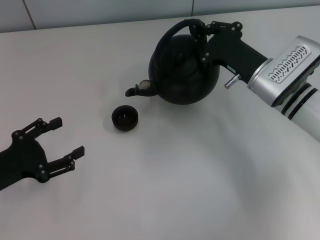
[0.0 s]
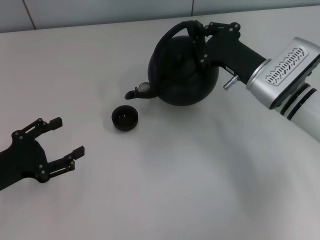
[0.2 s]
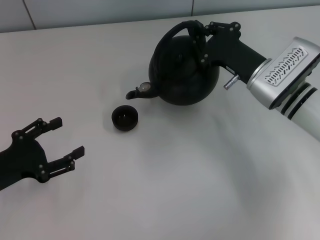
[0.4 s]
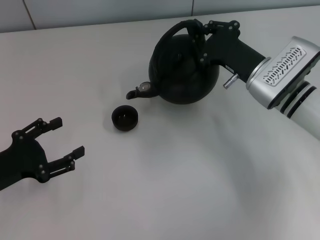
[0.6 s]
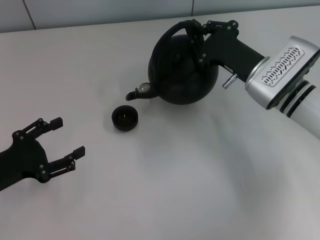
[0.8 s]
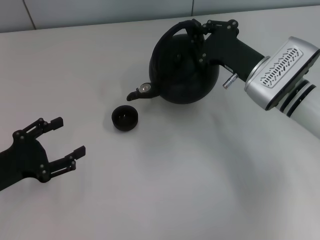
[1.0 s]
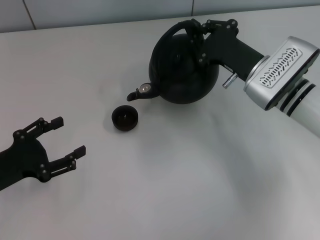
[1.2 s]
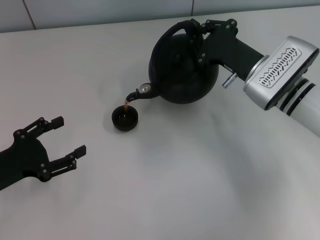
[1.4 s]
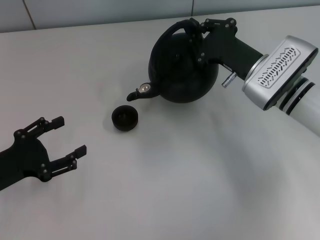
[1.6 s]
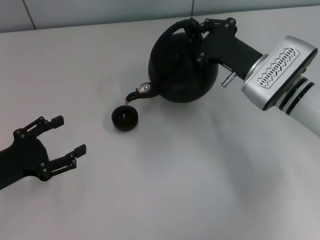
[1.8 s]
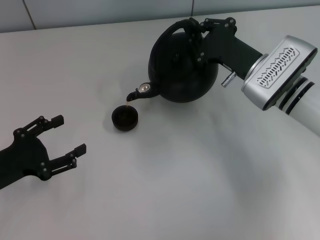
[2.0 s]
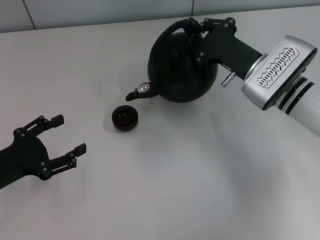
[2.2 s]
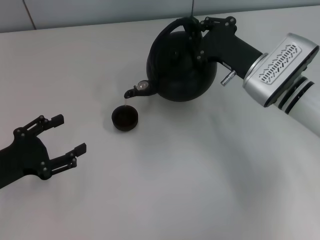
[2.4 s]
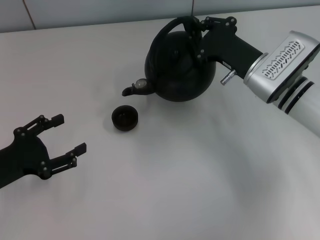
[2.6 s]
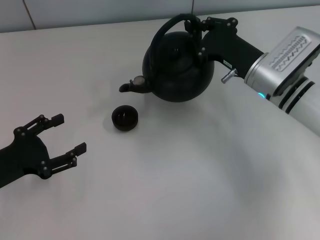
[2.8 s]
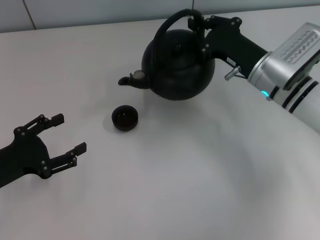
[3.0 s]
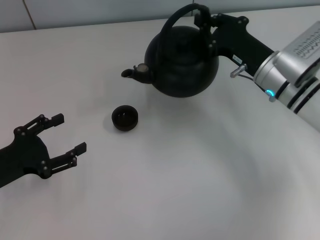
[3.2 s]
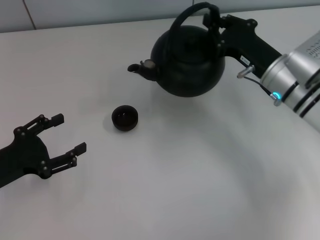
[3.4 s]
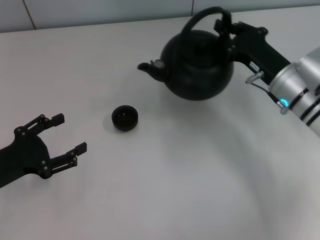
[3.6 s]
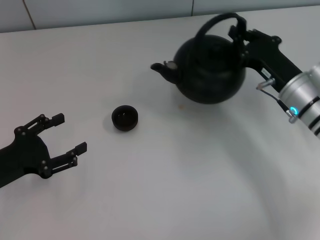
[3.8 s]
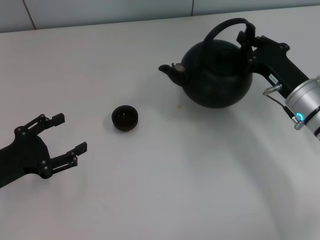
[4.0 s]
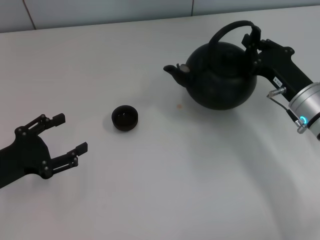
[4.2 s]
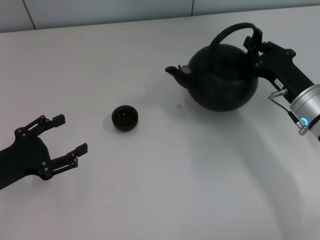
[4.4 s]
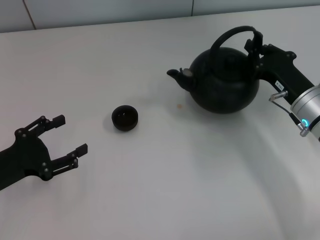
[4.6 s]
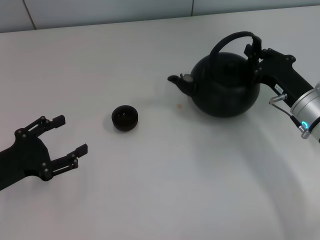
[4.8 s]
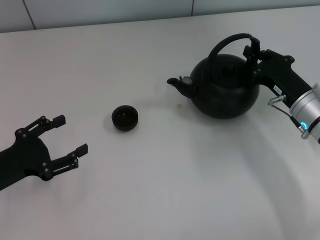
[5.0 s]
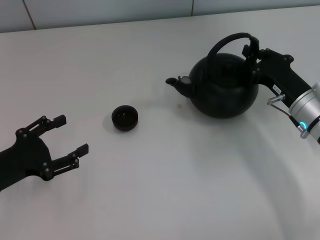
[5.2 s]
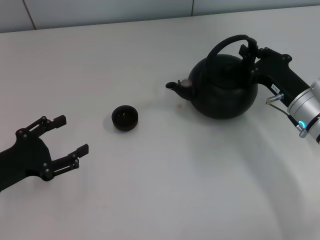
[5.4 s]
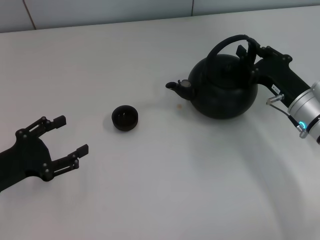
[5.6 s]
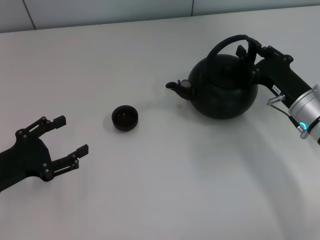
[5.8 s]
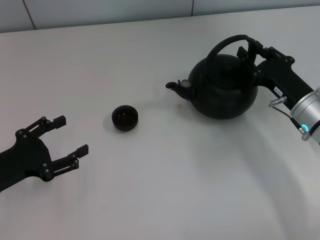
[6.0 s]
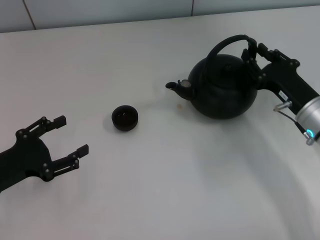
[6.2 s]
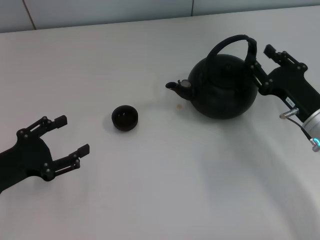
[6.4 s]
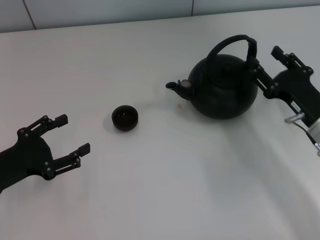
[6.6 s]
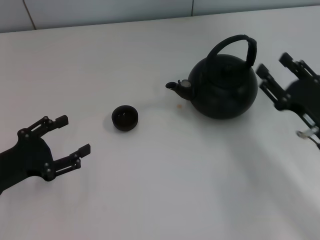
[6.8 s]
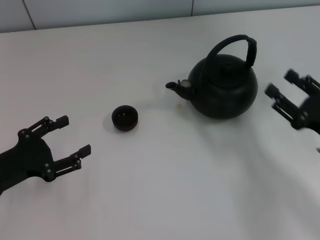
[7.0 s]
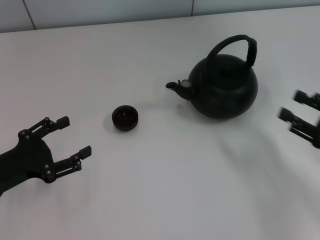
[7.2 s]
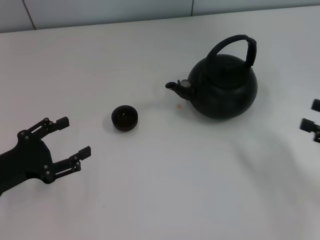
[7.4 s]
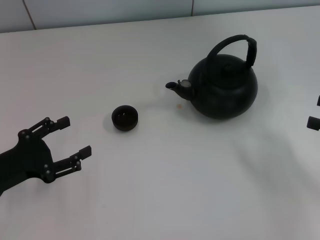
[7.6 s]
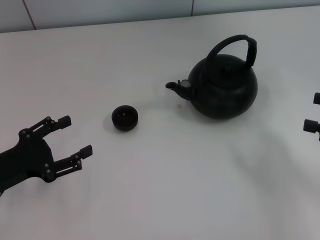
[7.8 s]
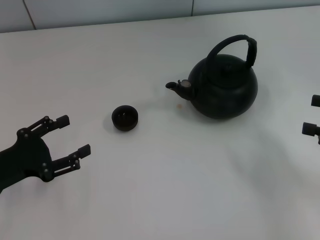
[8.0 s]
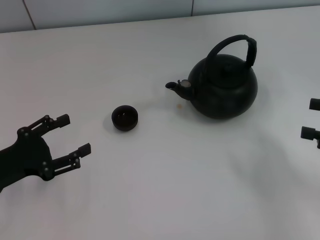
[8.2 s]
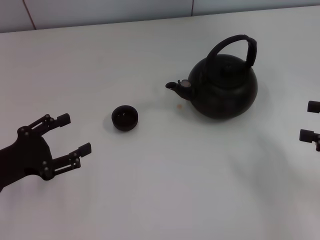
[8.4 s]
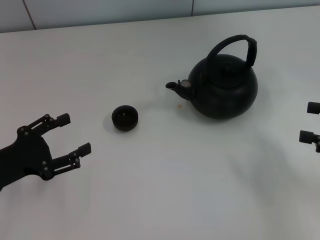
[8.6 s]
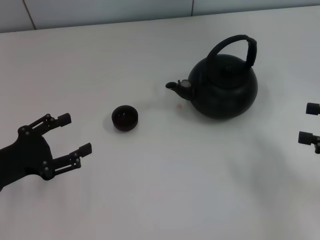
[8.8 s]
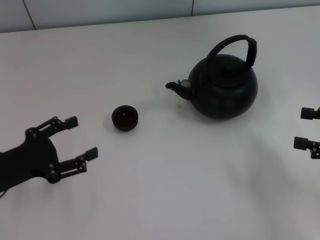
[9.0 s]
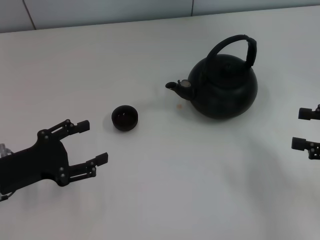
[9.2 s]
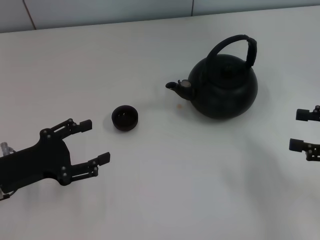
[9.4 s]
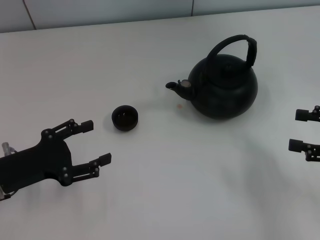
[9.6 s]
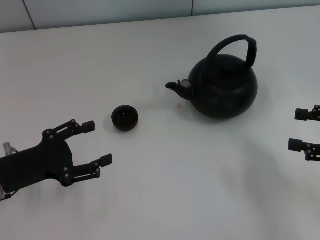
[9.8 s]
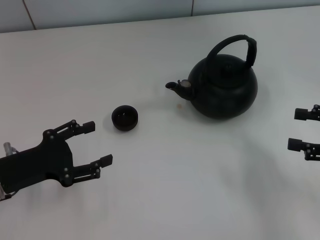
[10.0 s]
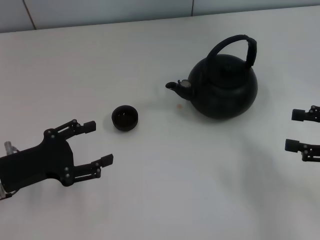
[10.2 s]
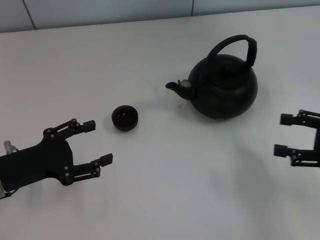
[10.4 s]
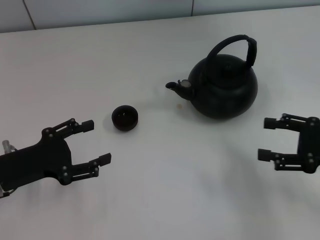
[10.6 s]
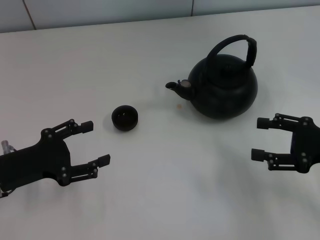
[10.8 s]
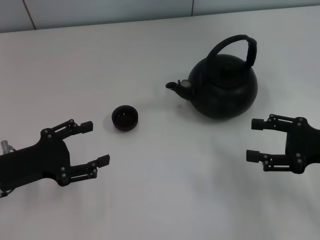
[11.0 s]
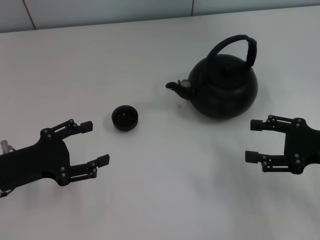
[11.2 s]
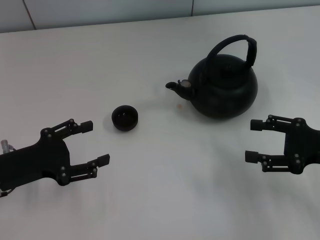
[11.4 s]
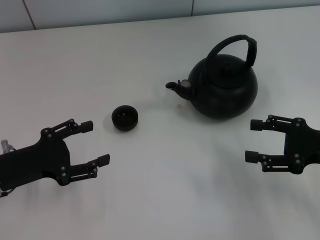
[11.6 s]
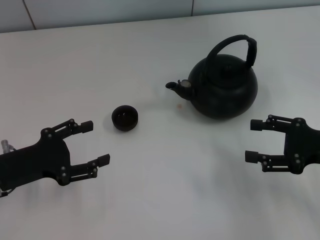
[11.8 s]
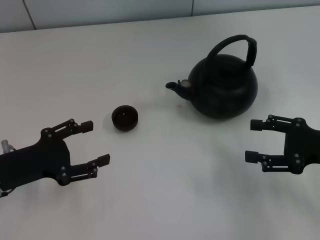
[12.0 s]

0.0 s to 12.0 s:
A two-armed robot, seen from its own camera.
Task of the whole recording: Grasp the handle of the teapot with one hand and pour tea into the teacup.
Step, 3.0 to 6.6 s: Put down the teapot with the right gripper.
0.0 to 3.0 s: The grippers stay close to where they were, moving slightly.
3.0 to 4.4 s: The right gripper goes some 5 cm to the right.
4.4 to 6.0 s: The grippers make only small movements.
6.0 to 7.6 s: The right gripper moves to the right, backward and upward, approximately 20 cm, and opens up.
7.6 to 10.4 s: There are only small adjustments of the grippers.
10.4 to 12.0 s: There are only small adjustments of the grippers.

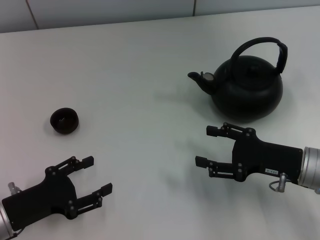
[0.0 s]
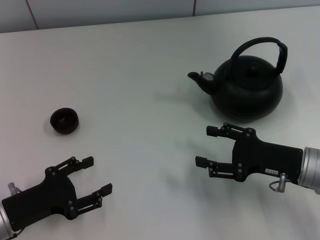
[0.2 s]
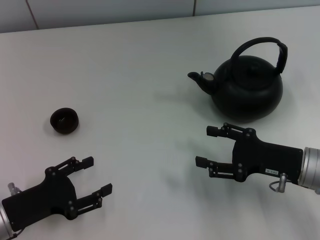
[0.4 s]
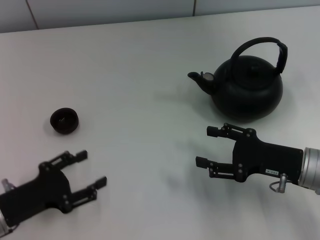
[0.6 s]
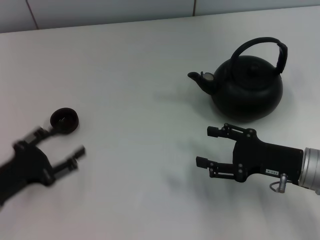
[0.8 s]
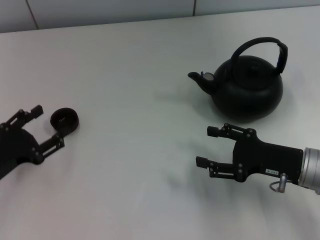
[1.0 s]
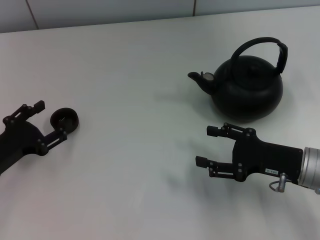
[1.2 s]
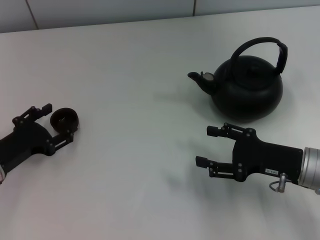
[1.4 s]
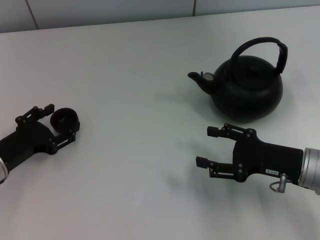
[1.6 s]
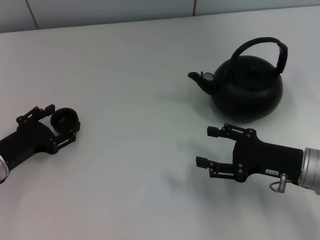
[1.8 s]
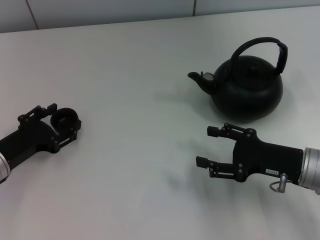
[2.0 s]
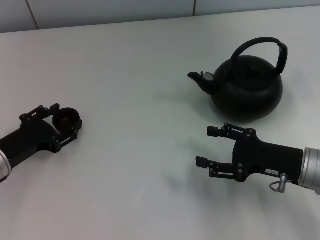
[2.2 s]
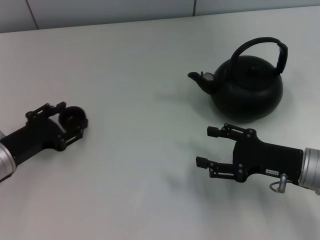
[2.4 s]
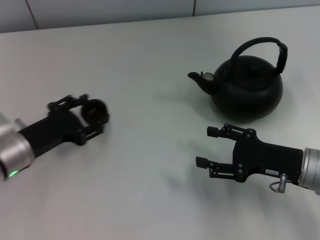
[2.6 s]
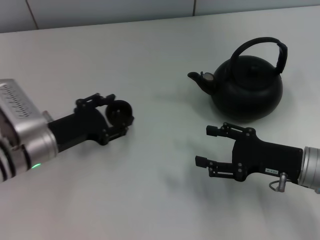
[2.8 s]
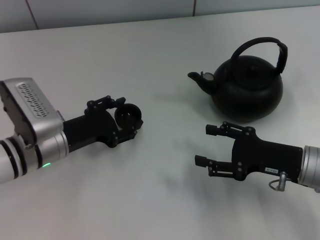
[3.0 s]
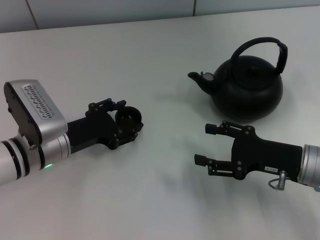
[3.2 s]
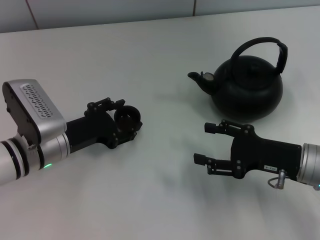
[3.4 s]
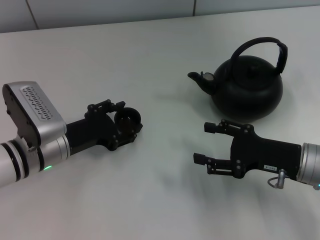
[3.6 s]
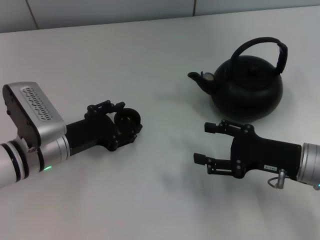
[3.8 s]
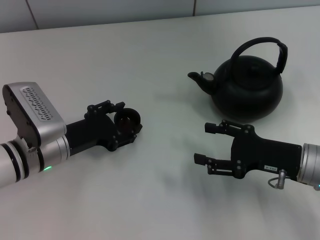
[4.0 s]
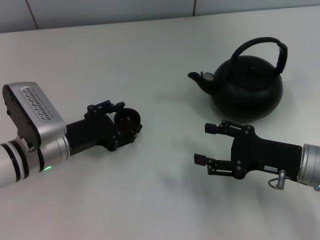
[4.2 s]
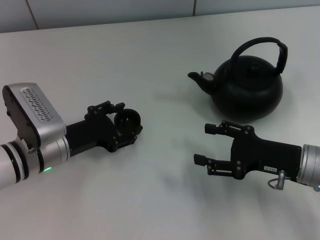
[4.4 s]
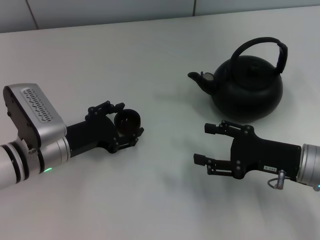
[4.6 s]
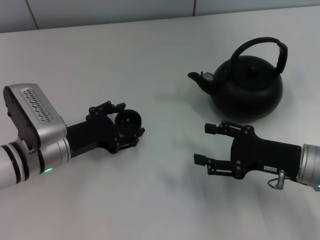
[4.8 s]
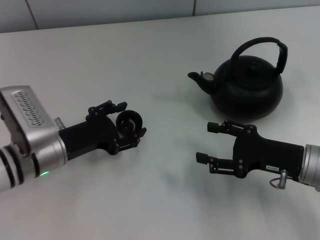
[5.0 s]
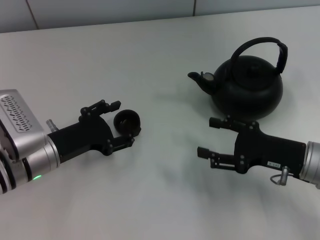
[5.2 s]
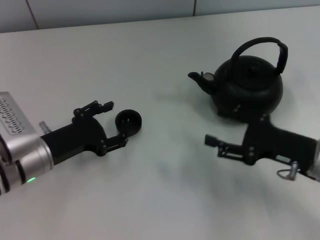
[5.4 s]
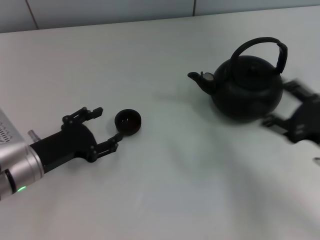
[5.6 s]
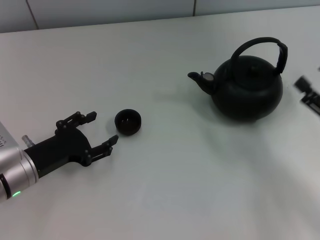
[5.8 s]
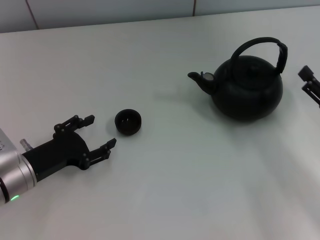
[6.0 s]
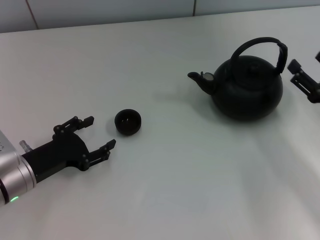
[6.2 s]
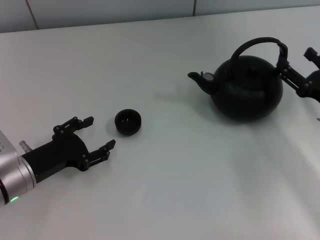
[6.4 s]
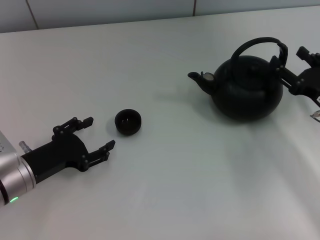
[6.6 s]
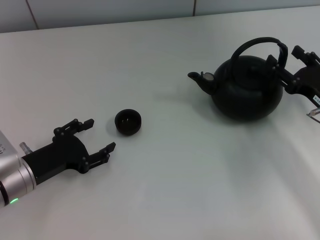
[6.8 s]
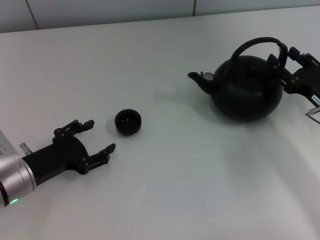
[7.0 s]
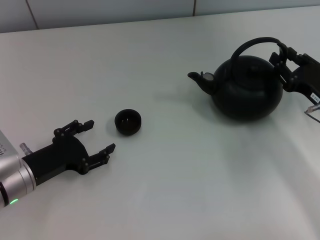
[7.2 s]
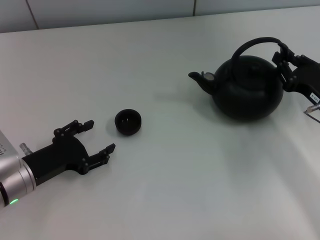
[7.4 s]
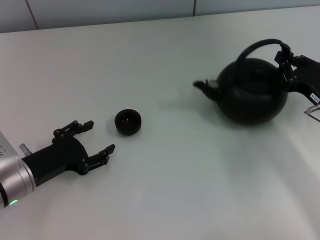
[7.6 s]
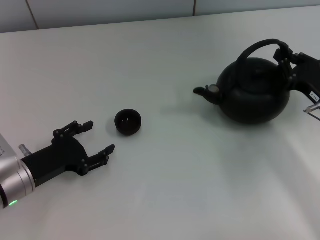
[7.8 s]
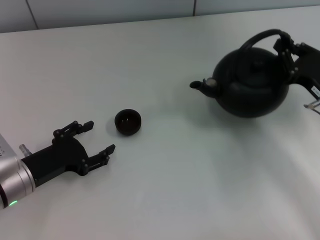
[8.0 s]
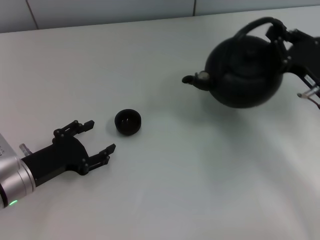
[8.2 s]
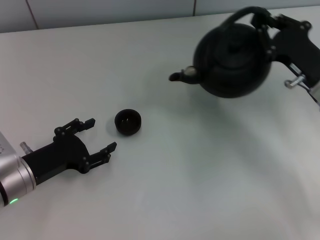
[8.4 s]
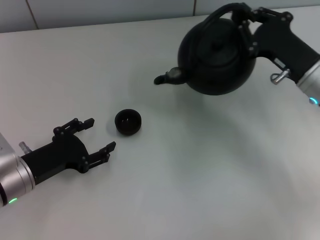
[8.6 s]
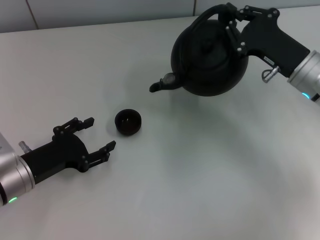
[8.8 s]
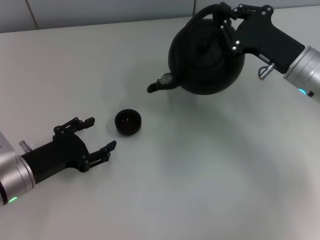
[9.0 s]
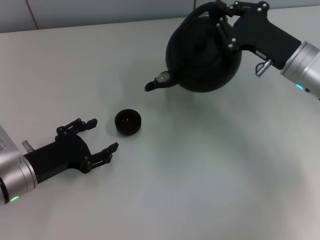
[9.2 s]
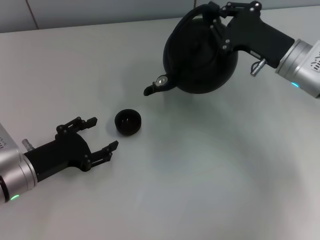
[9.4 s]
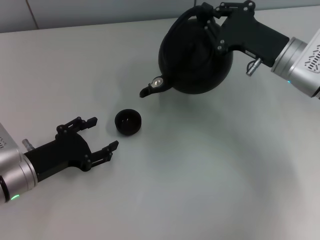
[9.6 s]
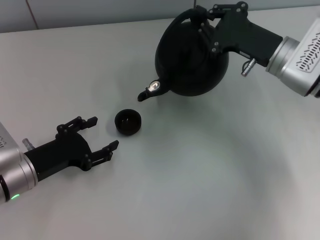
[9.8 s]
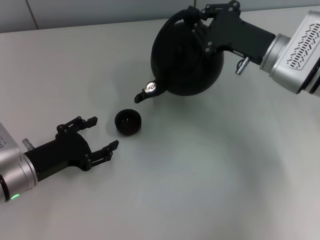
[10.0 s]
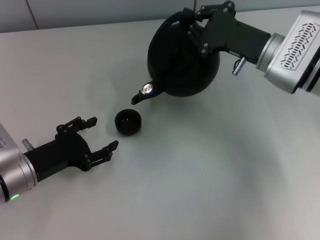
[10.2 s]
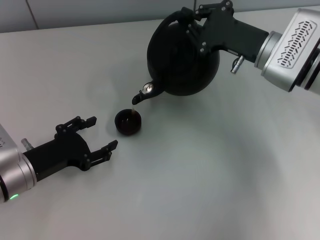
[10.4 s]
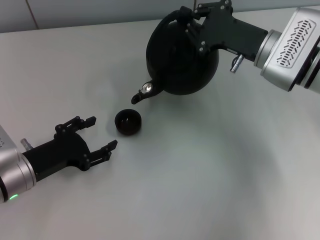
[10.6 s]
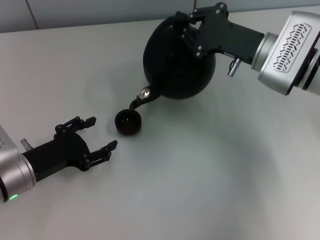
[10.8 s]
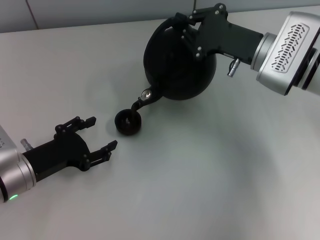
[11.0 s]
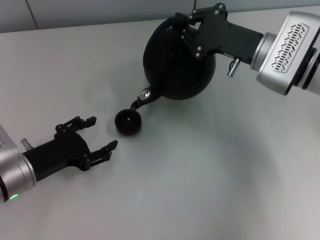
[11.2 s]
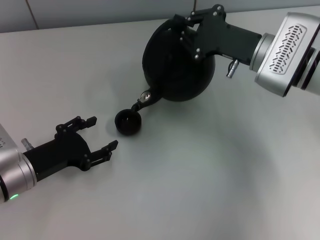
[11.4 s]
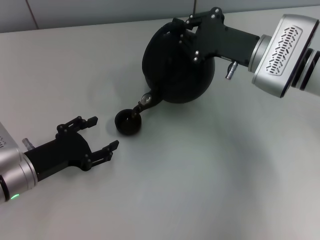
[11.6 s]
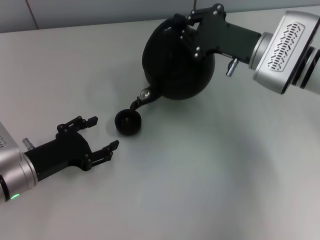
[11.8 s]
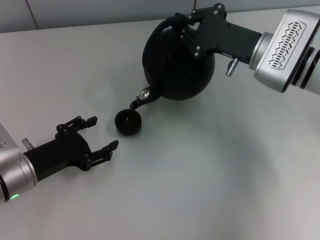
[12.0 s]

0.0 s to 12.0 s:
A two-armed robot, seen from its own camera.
Task of the whole recording: Grasp the handle of the teapot with one hand and pour tea into the teacup.
Step, 0.0 to 2.4 s: Pick up the teacup with the left gripper.
Step, 2.6 to 5.2 s: Place the teacup in the center of view with the left gripper.
Step, 5.6 to 8.0 s: Pick up the teapot with the right gripper.
0.0 to 1.6 s: The left gripper shifts roughly 5 cm forward.
1.6 to 3.0 s: The left gripper is displaced to the right by some 10 cm.
3.0 to 4.4 s: Both grippers stay put.
4.4 to 6.0 s: The left gripper ends up roughly 5 cm from where it was, while the right gripper moves to the right, some 10 cm.
6.0 to 7.6 s: The right gripper is displaced forward by about 5 cm, and closes up.
7.6 to 9.0 s: The right gripper heads to the left, forward and upward, covering roughly 10 cm.
9.0 to 10.4 s: The grippers move only a little.
10.4 to 12.0 s: There are only small adjustments of the grippers.
